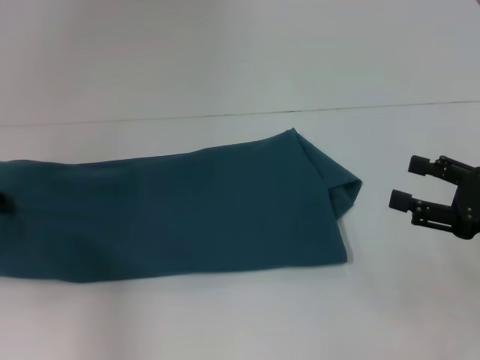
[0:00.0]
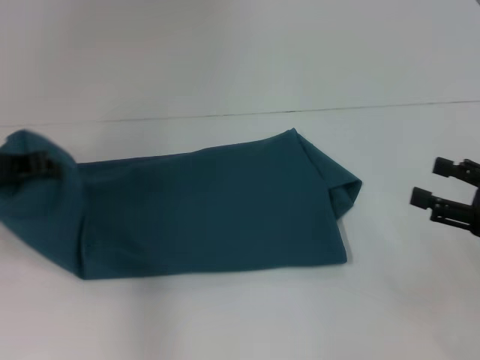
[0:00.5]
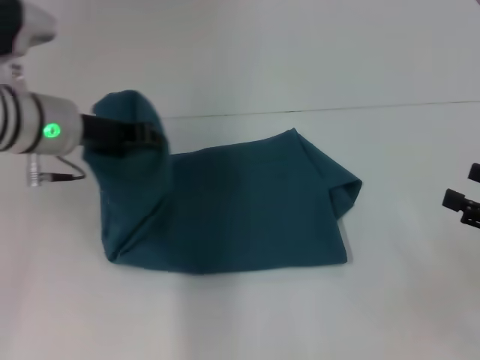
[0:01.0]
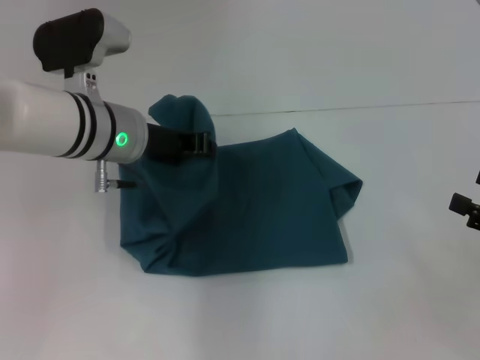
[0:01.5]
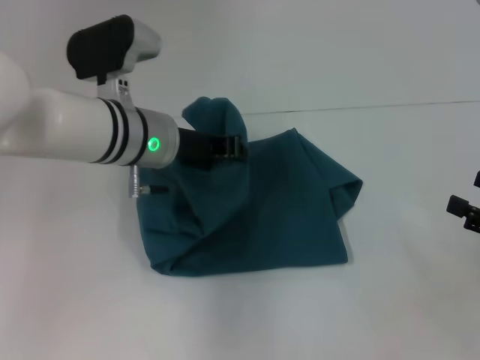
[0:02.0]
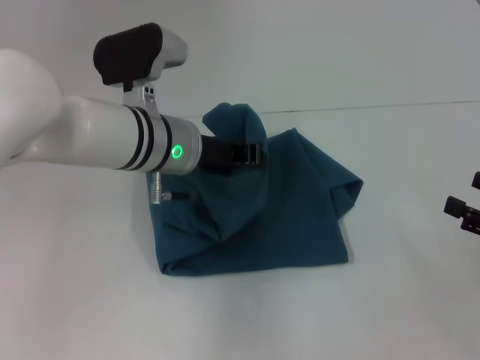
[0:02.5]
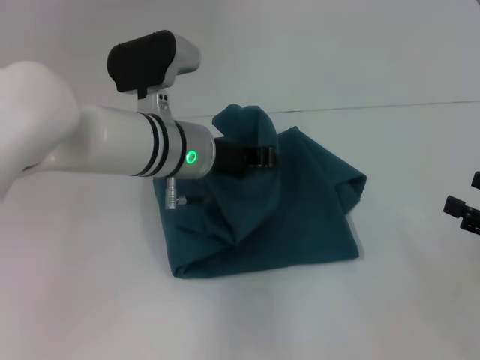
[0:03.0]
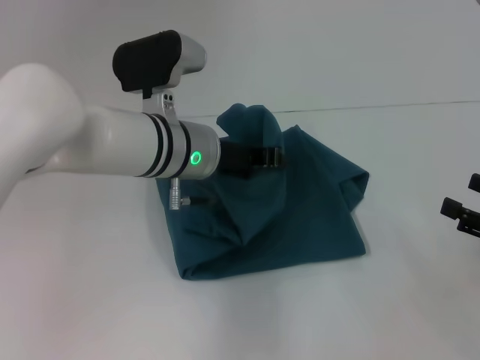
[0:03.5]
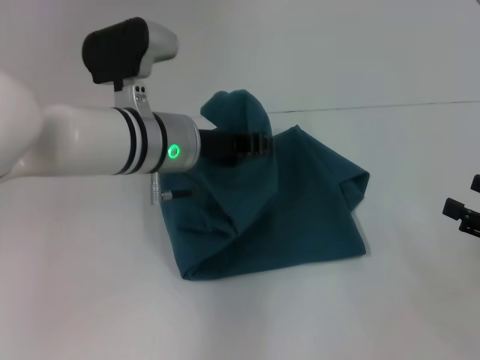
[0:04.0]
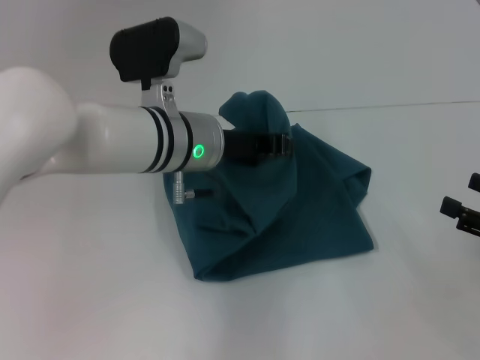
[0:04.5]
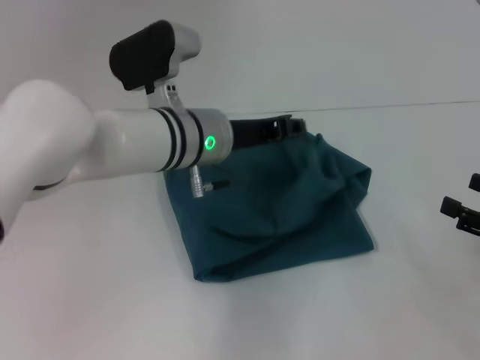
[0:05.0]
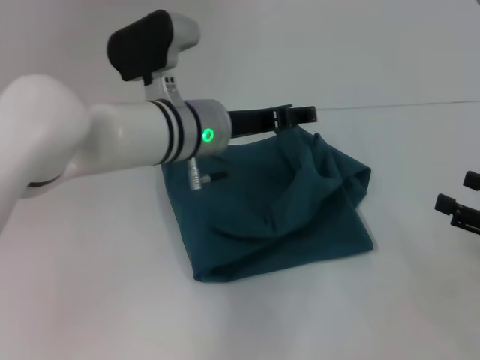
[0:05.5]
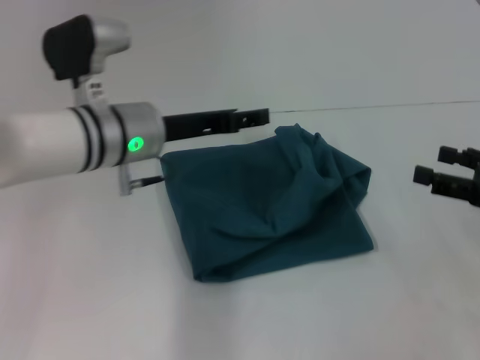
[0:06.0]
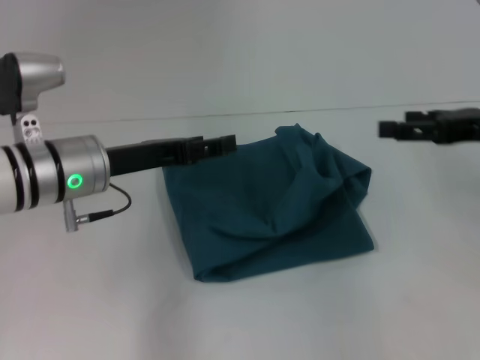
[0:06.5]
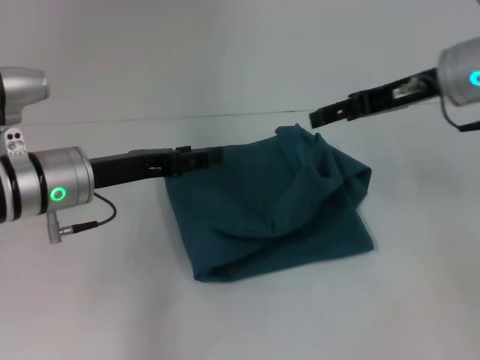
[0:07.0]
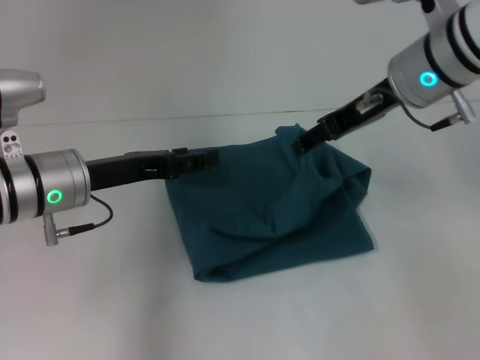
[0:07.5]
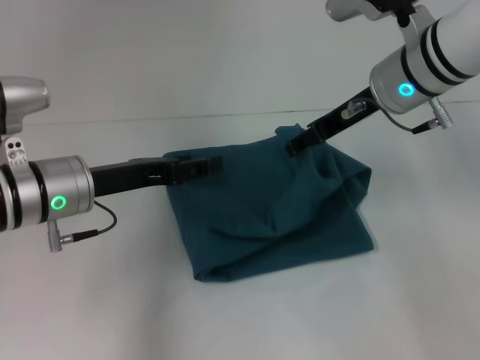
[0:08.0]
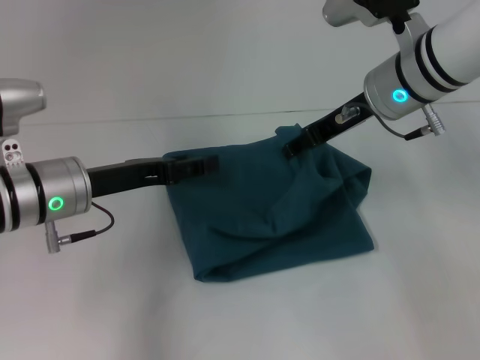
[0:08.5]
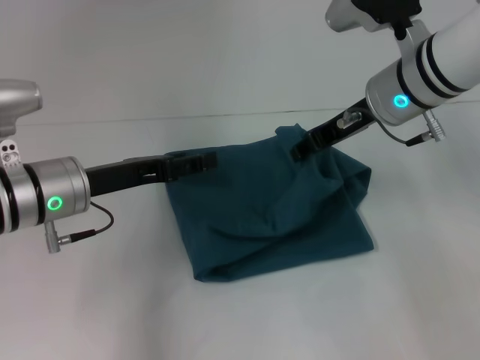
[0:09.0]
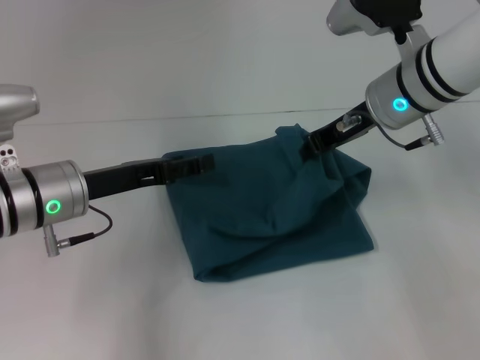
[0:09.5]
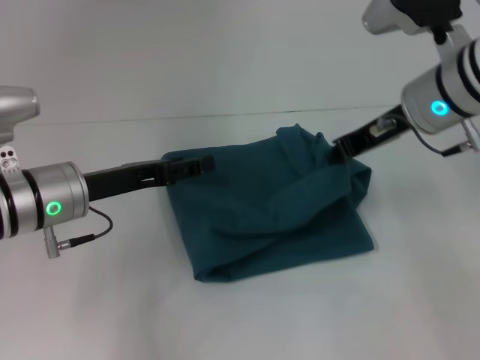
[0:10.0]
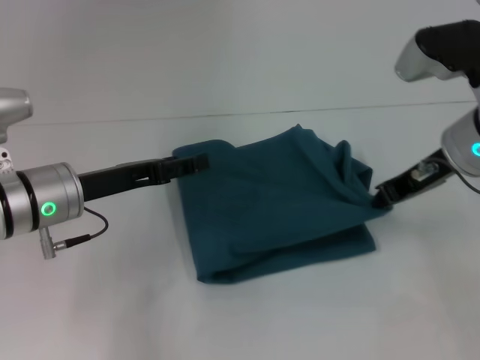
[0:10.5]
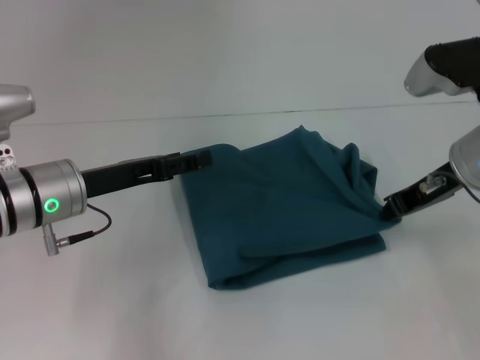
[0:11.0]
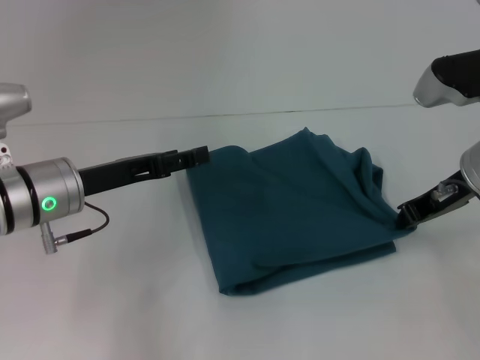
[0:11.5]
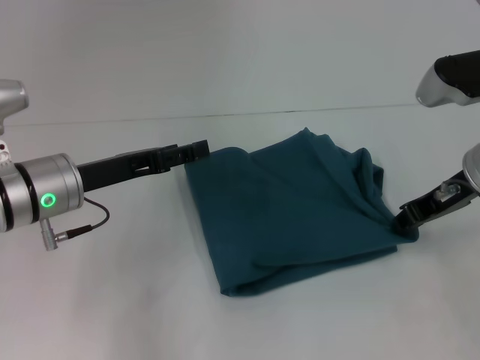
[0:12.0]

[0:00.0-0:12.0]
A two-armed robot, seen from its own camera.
Step, 0:00.0 to 0:05.5: Fold the clothes to the left.
0:00.0 to 0:02.0: The left gripper travels to the right by about 25 cm. Meanwhile the right gripper changes place by about 5 cm.
0:02.0 to 0:04.0: The grippers move only a little.
0:04.0 to 0:06.0: The left gripper opens up. Meanwhile the right gripper changes place by some 5 cm.
0:06.0 to 0:08.0: The right gripper goes some 25 cm to the left, forward and upward. Meanwhile the left gripper shifts approximately 5 cm to the left.
0:08.0 to 0:10.0: The right gripper closes up.
0:10.0 to 0:12.0: The right gripper moves to the right, approximately 5 cm.

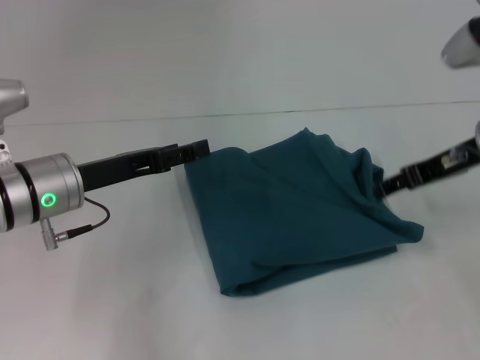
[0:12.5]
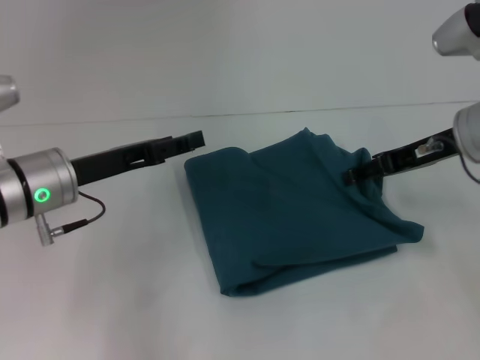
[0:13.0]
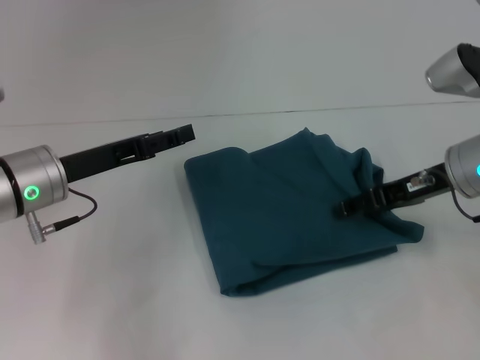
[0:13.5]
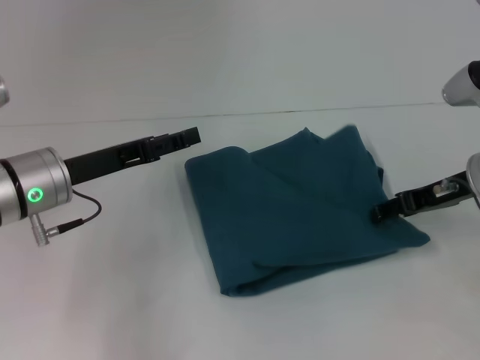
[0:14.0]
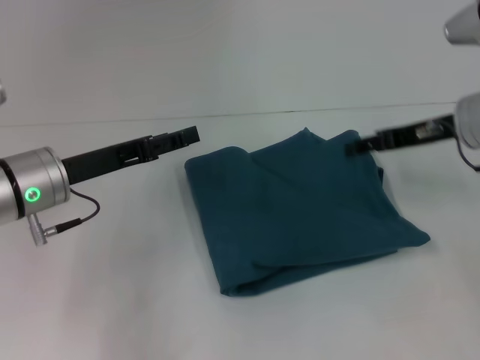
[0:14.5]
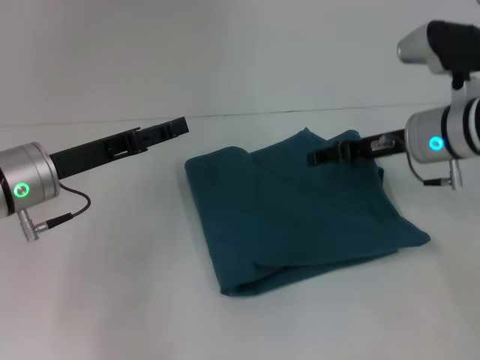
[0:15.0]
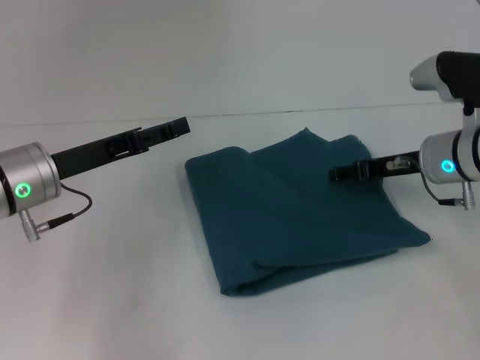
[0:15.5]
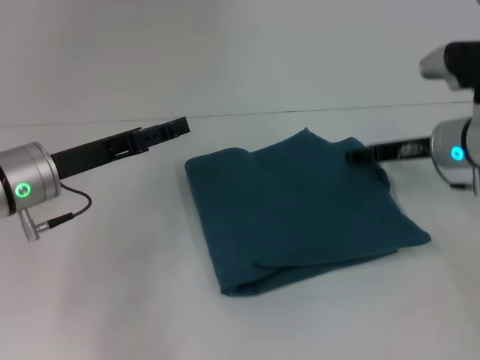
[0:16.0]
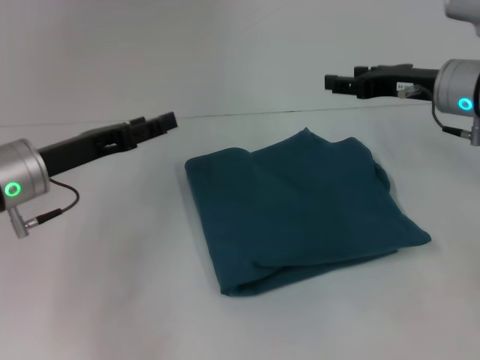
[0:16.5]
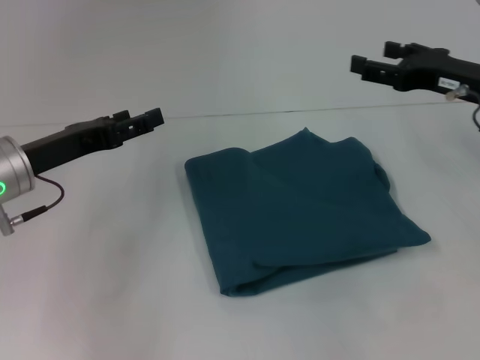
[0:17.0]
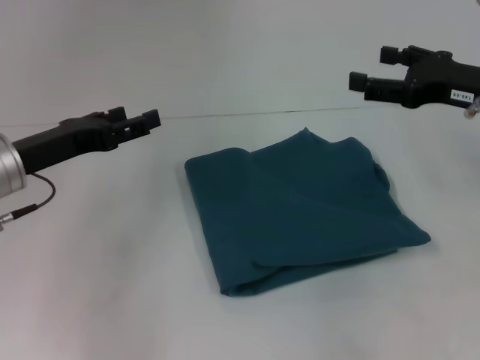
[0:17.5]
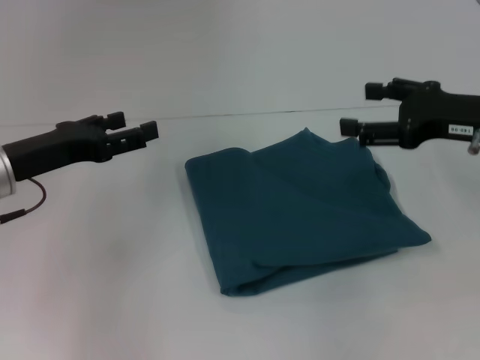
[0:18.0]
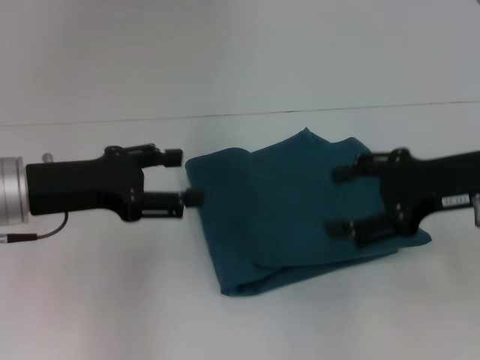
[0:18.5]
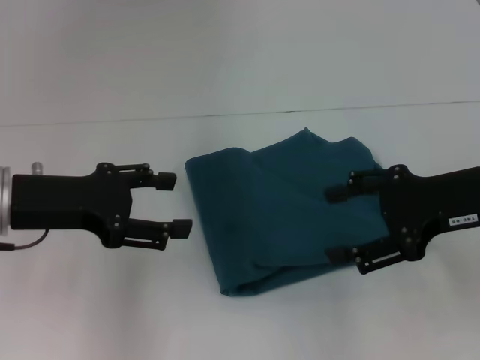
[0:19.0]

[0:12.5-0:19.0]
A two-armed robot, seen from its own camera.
0:12.5 to 0:14.5: There are only small adjustments of the grippers.
0:17.0 to 0:19.0: The right gripper travels backward by approximately 10 cm.

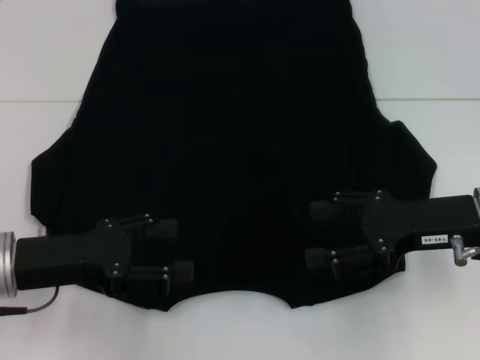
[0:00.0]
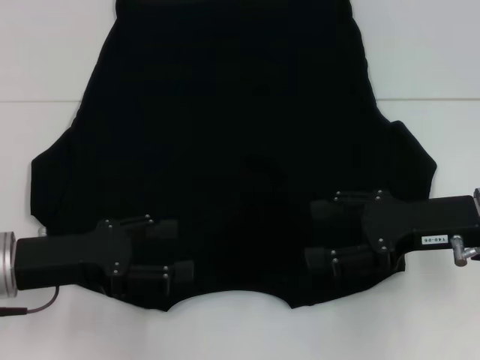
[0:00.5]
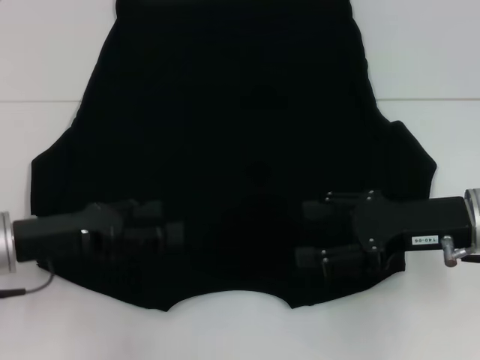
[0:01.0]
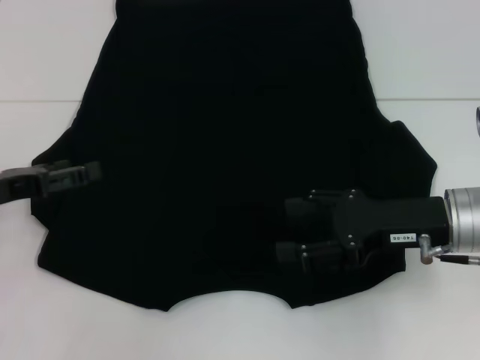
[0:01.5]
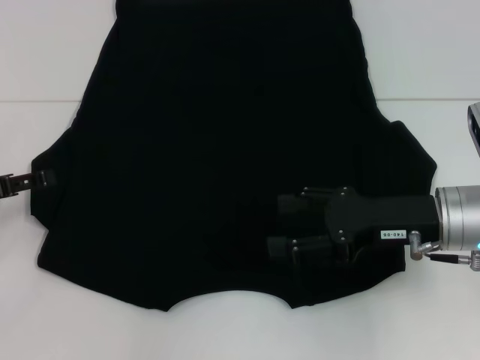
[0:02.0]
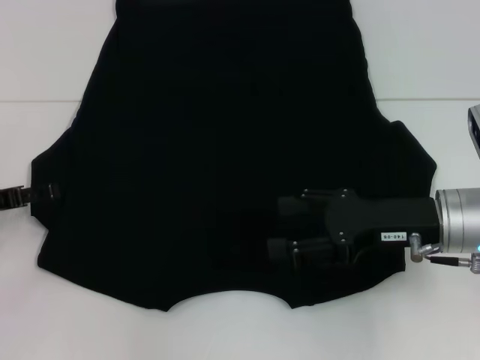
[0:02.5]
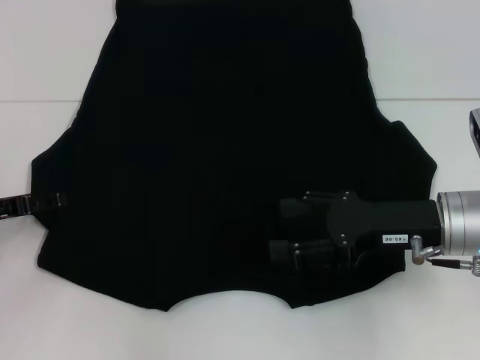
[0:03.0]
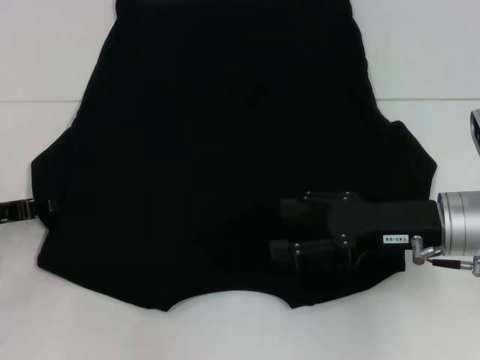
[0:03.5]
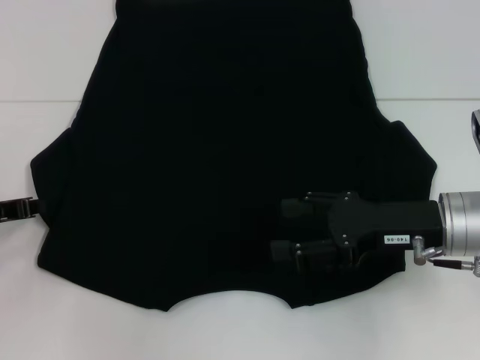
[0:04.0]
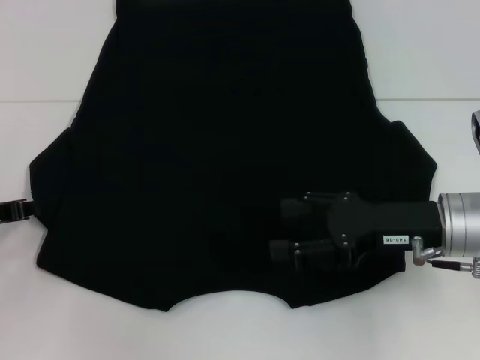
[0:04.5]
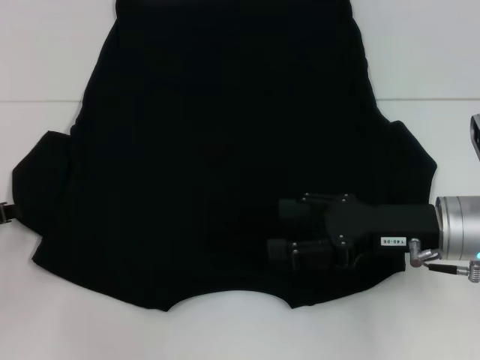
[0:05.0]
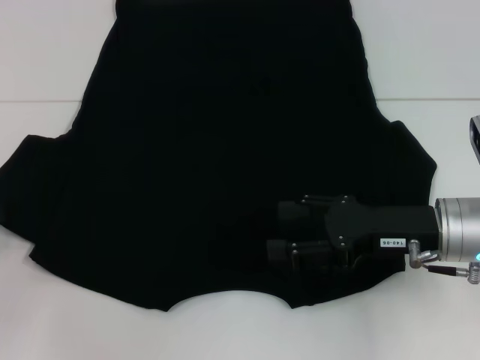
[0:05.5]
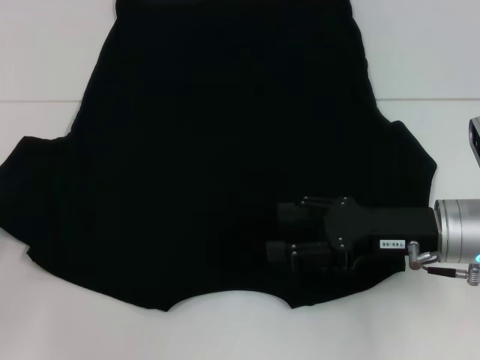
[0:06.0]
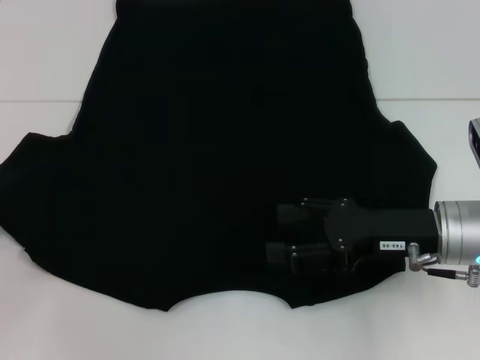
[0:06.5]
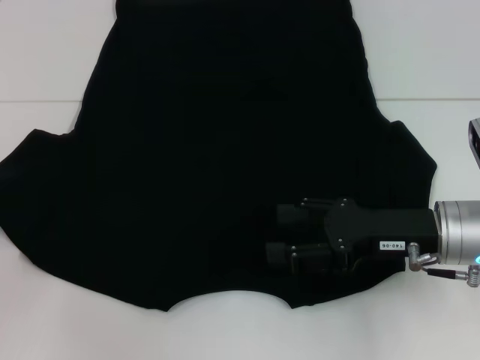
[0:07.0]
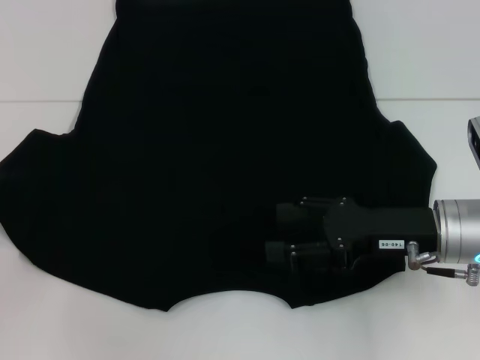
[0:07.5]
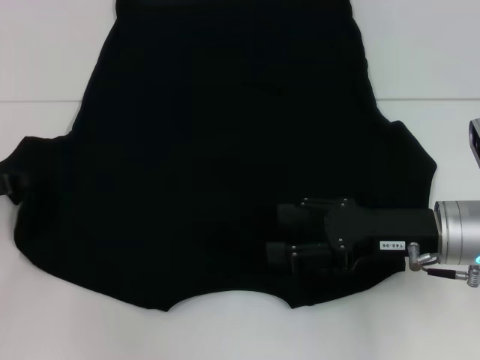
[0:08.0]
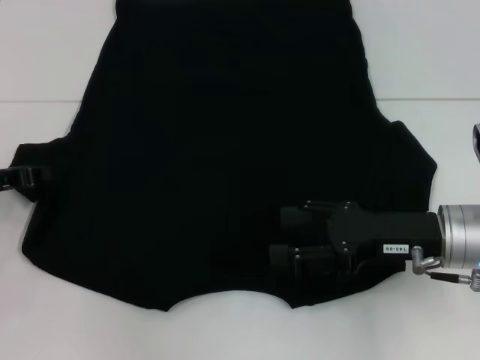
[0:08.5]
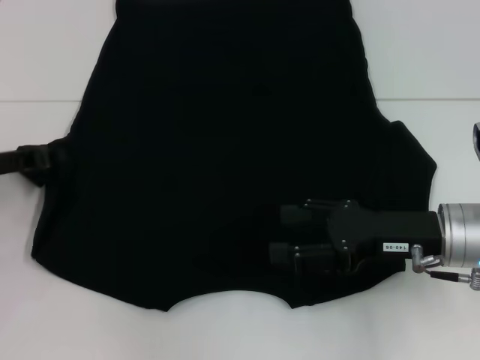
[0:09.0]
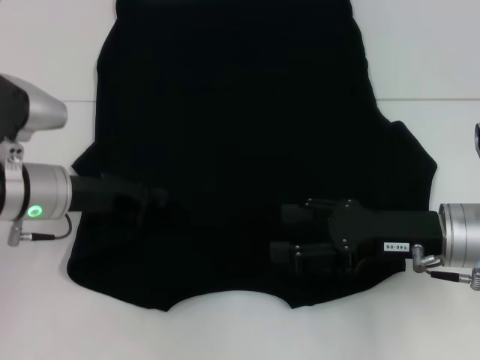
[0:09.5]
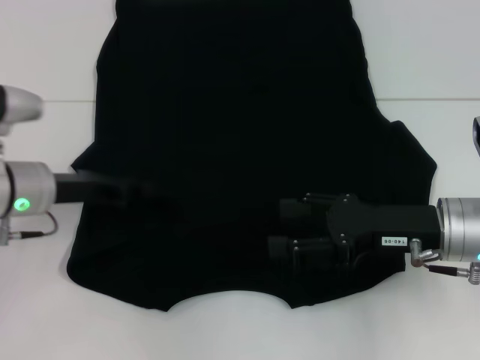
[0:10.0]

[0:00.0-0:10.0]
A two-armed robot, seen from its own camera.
0:00.0 to 0:02.0: The left gripper travels to the left by some 10 cm.
0:02.0 to 0:04.0: The left gripper closes up.
0:04.0 to 0:06.0: The left gripper shifts by roughly 5 cm.
0:06.0 to 0:08.0: The grippers stay close to where they were, moving slightly.
0:08.0 to 0:10.0: The left gripper heads to the right, covering roughly 10 cm.
